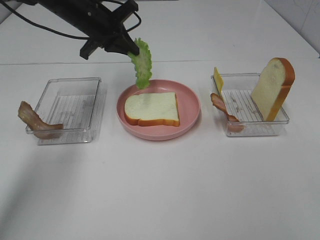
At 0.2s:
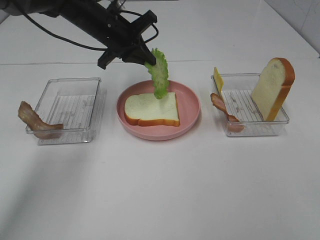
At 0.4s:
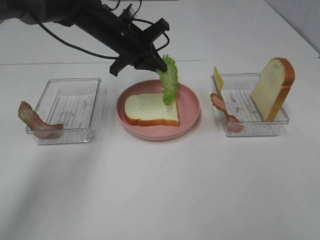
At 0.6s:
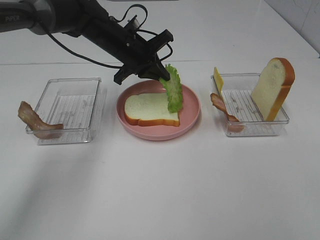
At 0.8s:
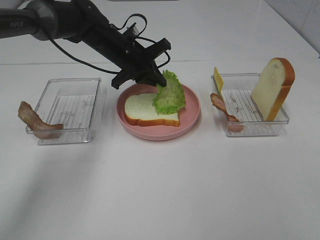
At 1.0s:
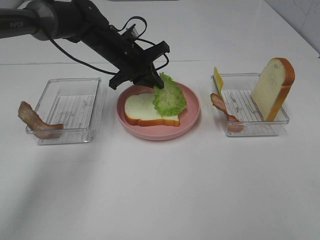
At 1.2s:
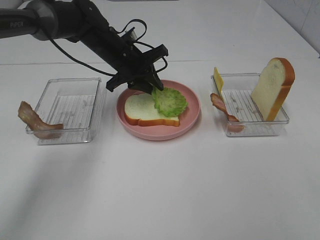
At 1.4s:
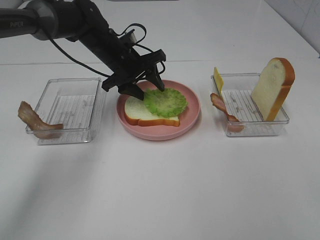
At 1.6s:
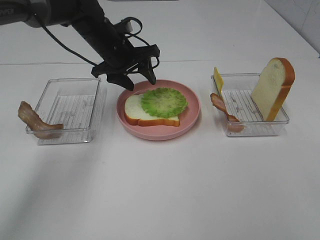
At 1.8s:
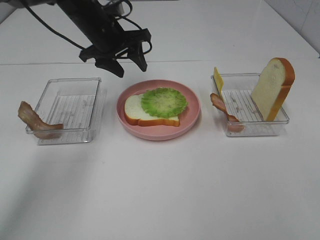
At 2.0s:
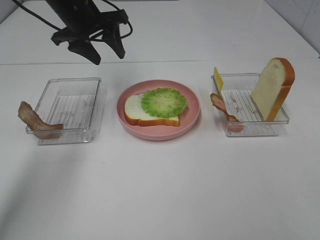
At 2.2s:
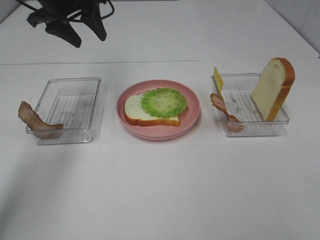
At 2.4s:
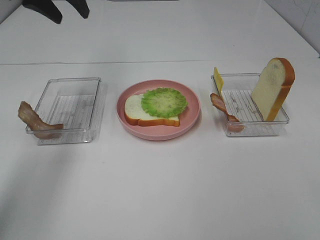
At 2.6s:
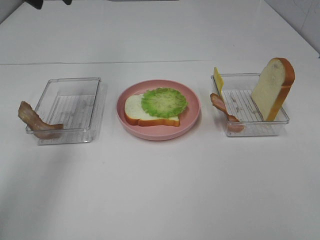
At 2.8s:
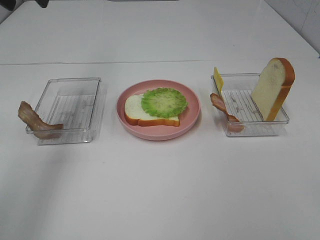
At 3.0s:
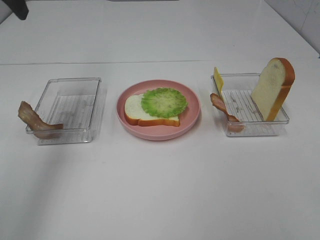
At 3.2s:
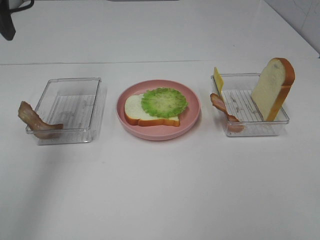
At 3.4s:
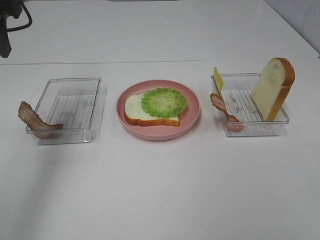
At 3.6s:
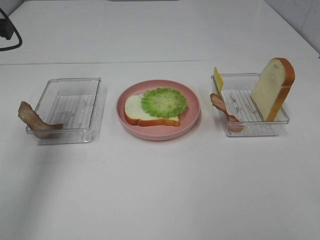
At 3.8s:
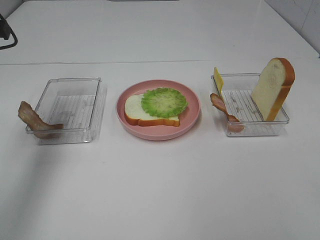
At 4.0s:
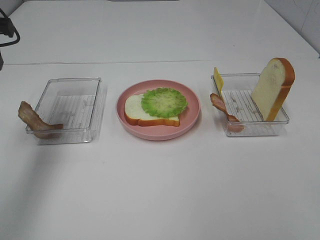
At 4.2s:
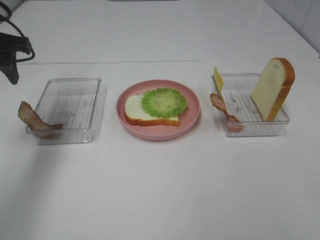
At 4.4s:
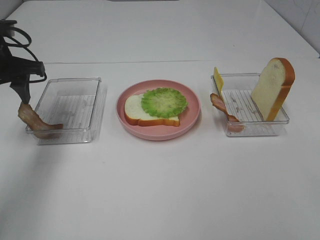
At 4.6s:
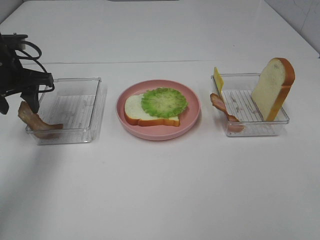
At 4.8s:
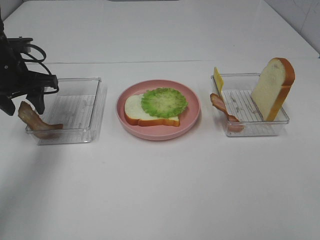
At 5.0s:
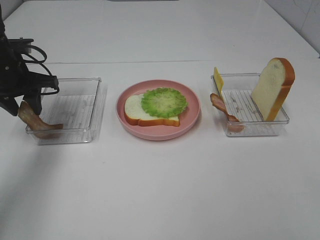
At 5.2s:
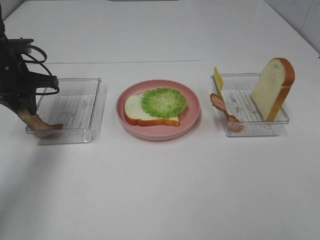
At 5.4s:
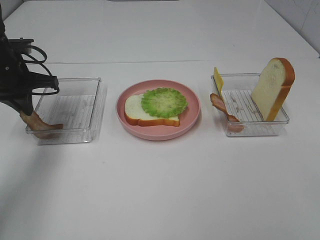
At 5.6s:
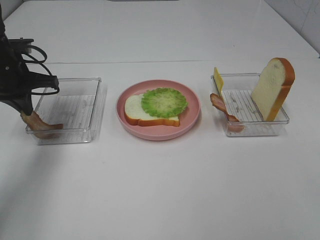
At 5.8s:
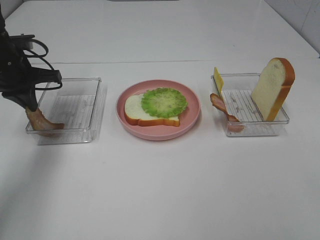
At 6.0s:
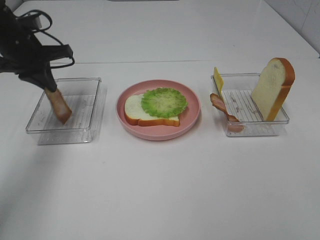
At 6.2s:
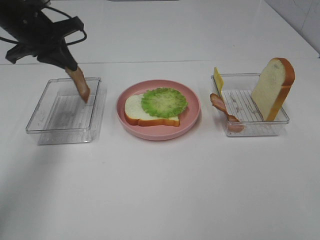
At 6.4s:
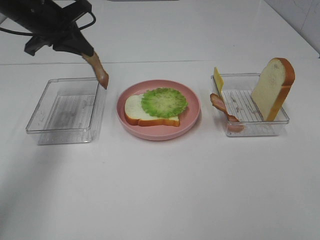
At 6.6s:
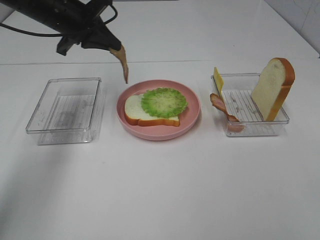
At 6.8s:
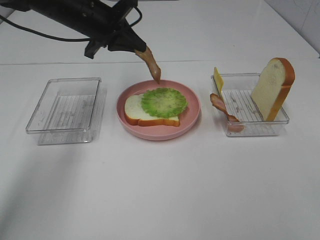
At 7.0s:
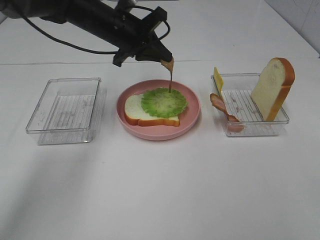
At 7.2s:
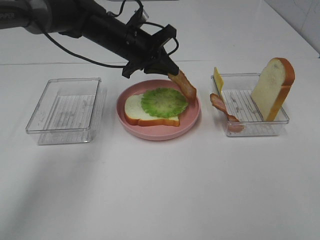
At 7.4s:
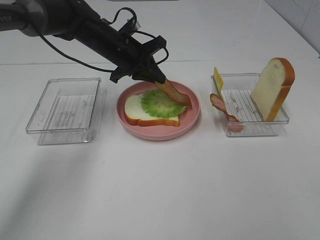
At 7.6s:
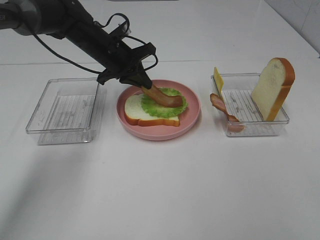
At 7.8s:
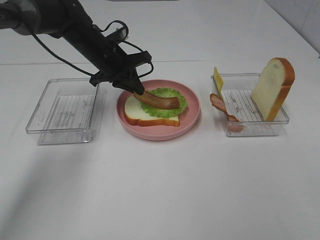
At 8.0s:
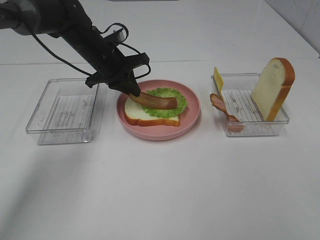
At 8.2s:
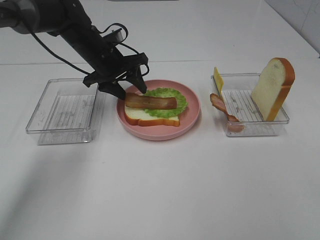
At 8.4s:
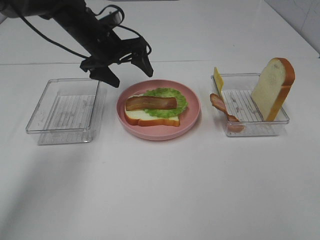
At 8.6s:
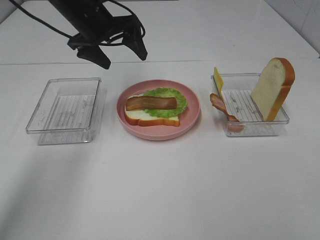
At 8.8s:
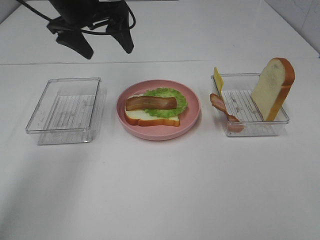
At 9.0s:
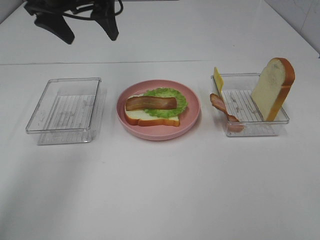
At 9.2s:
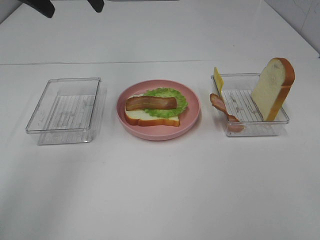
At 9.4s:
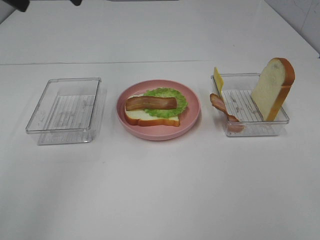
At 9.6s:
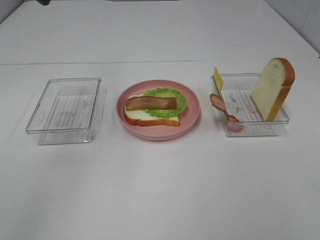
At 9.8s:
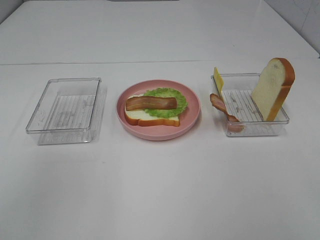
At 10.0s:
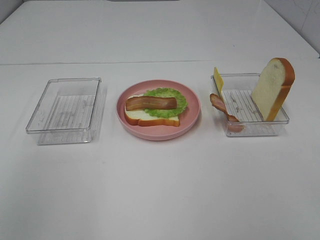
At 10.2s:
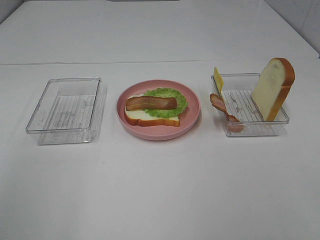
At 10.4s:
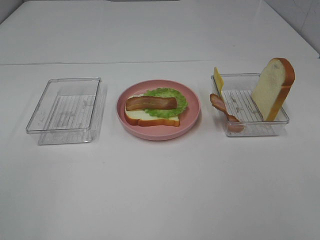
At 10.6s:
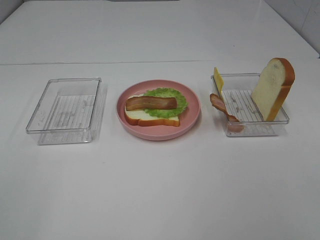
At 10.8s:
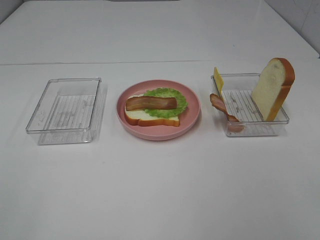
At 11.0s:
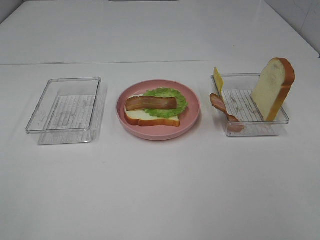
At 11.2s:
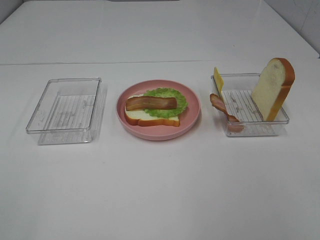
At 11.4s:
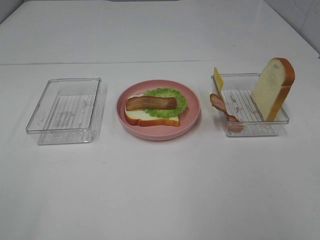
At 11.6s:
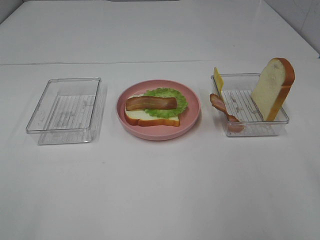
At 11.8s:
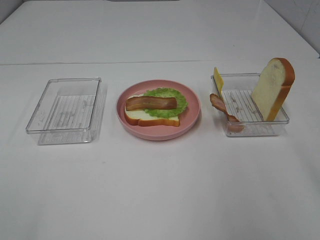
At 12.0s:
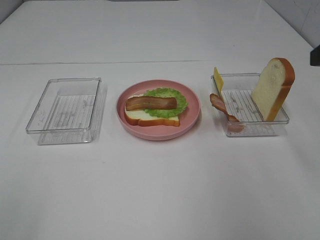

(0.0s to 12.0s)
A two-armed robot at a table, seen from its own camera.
Task of the whole recording: Make sandwiches.
Step, 0.0s - 1.4s: Left hand:place the lettuce slice on the bread slice.
Step, 1.6s - 5.6s: Left hand:grab the bacon.
Step, 5.8s - 8.6s: Left hand:place bacon on lettuce slice.
0.0s - 1.6s: The left gripper opens.
1.6s - 3.0s: The left gripper heads upward, to the left and backward, covering approximately 30 cm.
3.0s - 4.4s: The left gripper travels downward by roughly 15 cm.
4.4s - 6.0s: The left gripper closes.
6.0s - 7.6s: The left gripper is displaced to the right, downward and forward by approximately 15 cm.
7.6s - 9.0s: The left gripper moves upward, approximately 15 cm, and opens up.
9.0s - 10.4s: The left gripper goes roughly 40 cm backward.

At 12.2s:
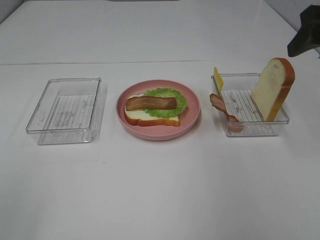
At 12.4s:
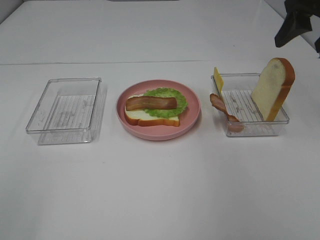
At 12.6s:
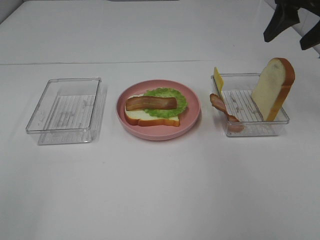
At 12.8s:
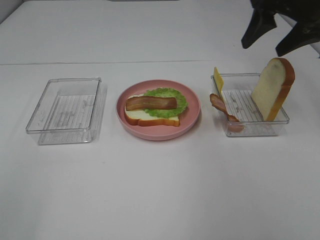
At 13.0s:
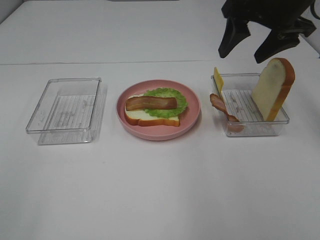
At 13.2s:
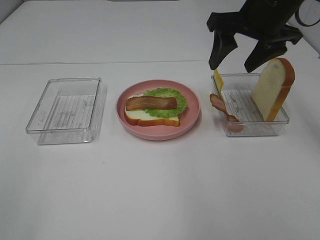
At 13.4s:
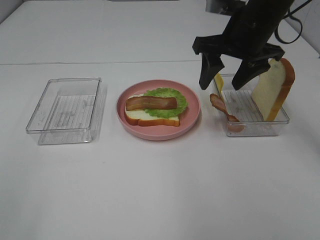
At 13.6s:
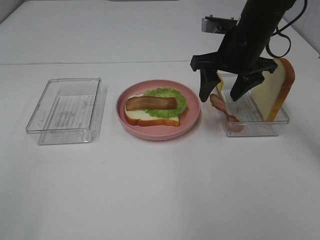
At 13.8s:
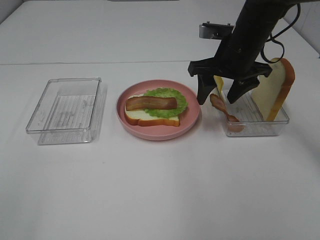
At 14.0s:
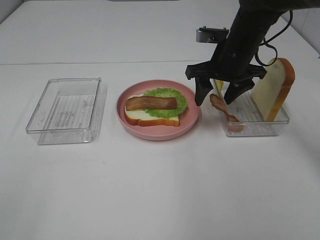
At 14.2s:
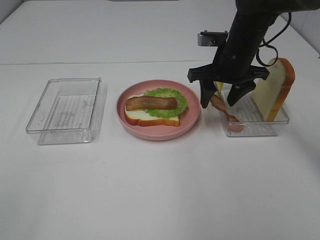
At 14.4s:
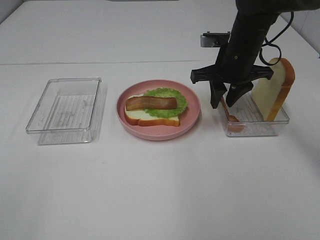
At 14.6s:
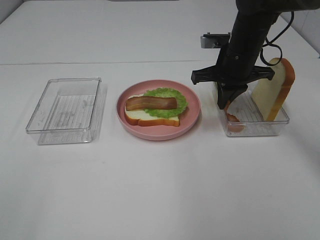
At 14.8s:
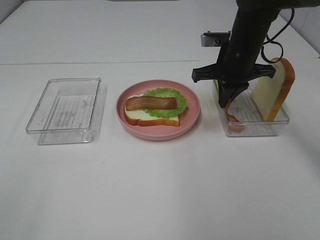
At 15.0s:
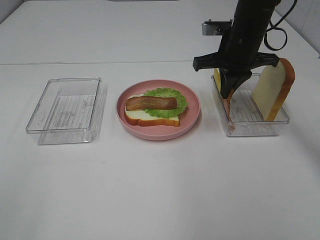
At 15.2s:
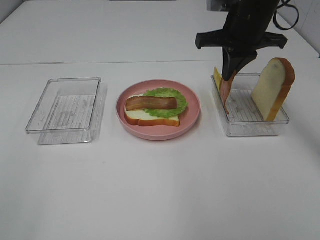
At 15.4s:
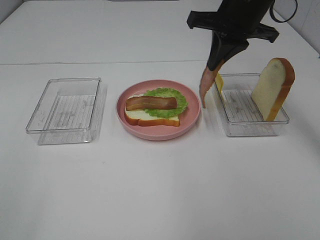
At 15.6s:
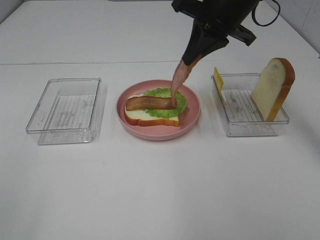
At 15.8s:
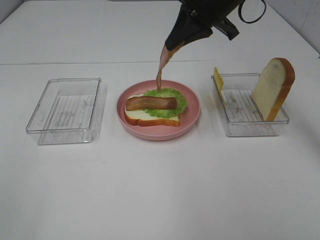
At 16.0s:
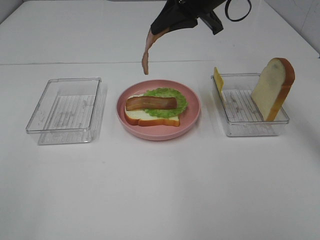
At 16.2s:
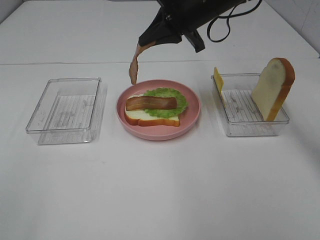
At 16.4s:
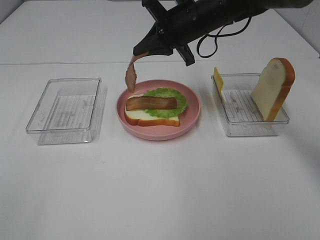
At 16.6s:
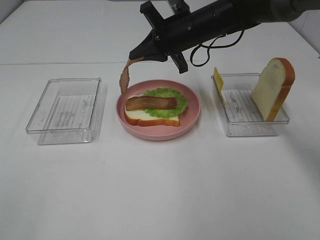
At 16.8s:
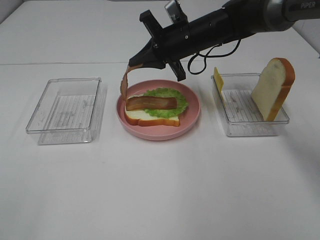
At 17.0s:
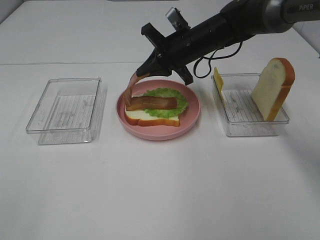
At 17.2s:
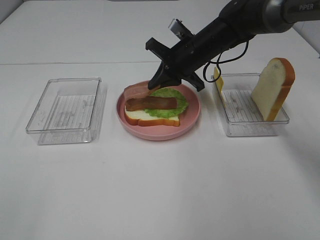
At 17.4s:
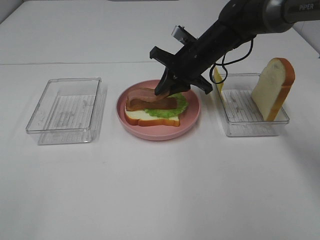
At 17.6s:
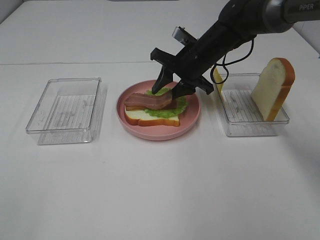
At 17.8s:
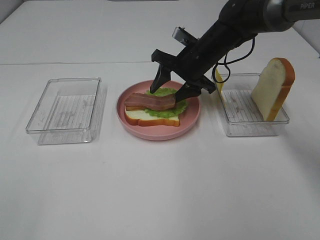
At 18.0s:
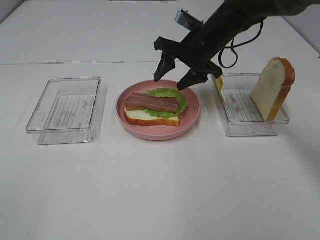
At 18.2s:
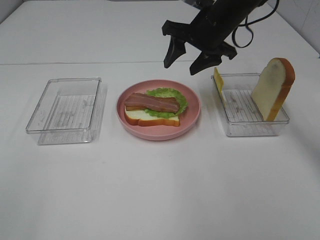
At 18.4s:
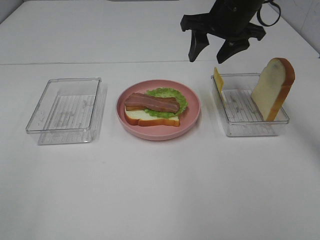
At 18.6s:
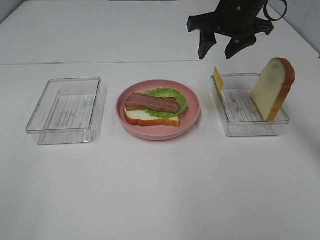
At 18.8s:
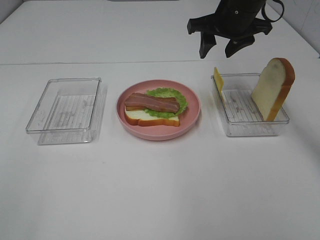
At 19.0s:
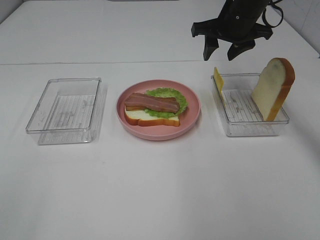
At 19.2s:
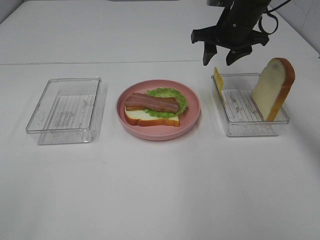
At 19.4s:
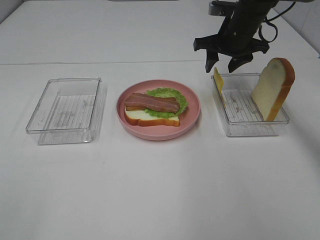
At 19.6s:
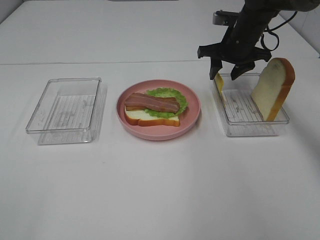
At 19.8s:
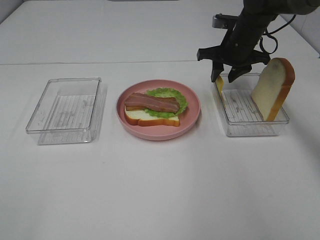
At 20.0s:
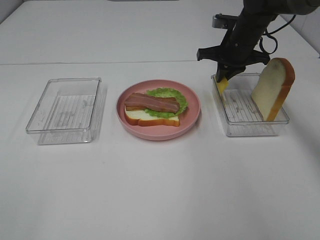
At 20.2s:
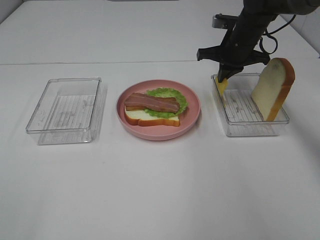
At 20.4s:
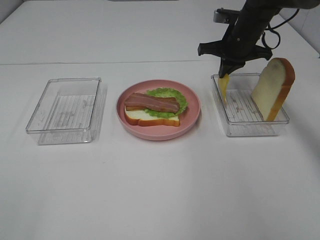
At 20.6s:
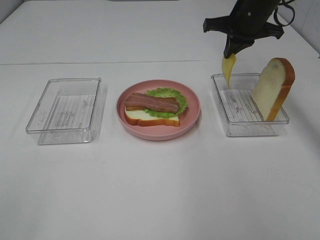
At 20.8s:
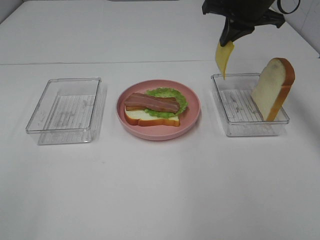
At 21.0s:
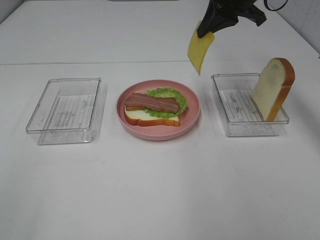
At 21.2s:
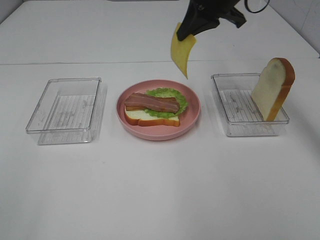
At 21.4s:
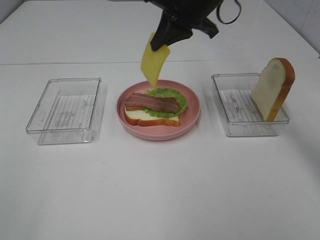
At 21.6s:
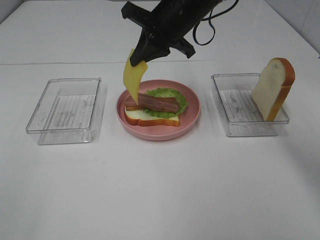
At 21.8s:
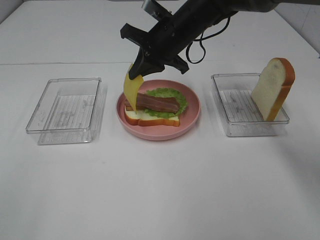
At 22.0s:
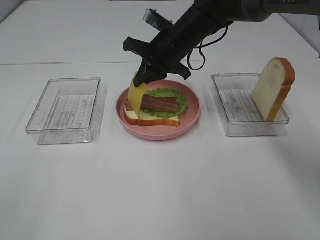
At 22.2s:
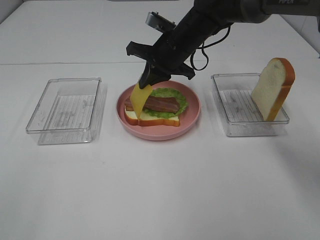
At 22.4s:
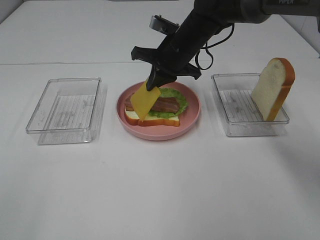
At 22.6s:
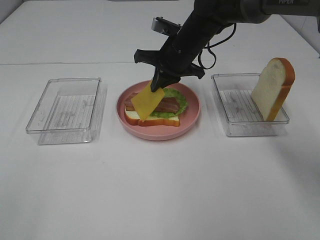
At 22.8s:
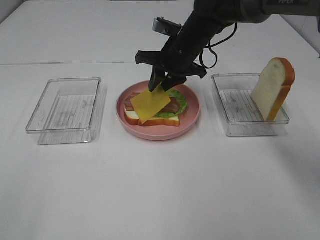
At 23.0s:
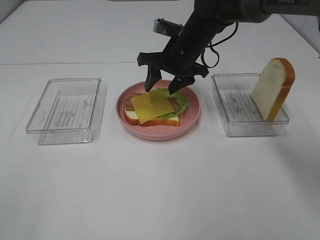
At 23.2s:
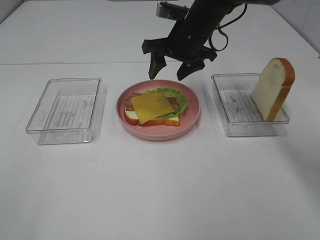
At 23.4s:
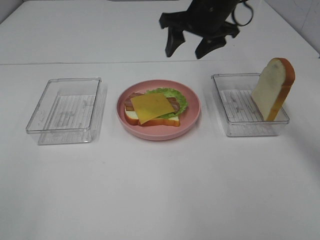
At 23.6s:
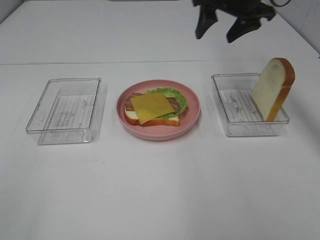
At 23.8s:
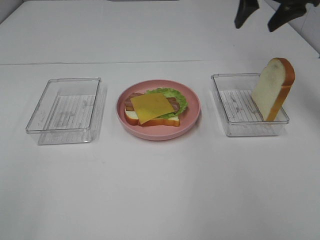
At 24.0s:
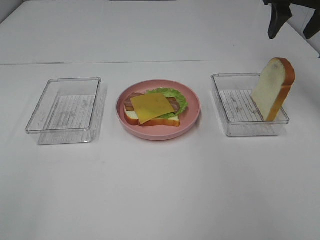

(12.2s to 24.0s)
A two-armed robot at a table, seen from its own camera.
Task of the whole recording: Make sandwiches.
Step, 12.2s - 14.8s: Right hand:grab the bacon.
Step, 15.0s - 17.8s: Right hand:place bacon on bacon.
Step, 18.0s - 20.2s: Right hand:grab the cheese slice.
Step, 20.4s - 23.2s: Right hand:place the cheese slice on top of the bacon.
12.2s - 13.6s: The right gripper is displaced to the left, downward and forward by about 20 cm.
13.6s - 15.2s: The right gripper closes its fingers.
15.2s - 16.6s: The right gripper heads to the left and downward, covering about 10 cm.
16.6s - 18.2s: The right gripper changes place by approximately 5 cm, and opens up.
18.2s - 19.6s: The right gripper heads to the right, downward and forward, covering approximately 10 cm.
19.6s - 21.0s: The right gripper heads upward and backward, covering about 15 cm, and closes its fingers.
21.0s - 22.6s: The right gripper moves downward and to the left, roughly 15 cm.
22.6s - 24.0s: The right gripper goes some 25 cm to the right and upward, and opens up.
